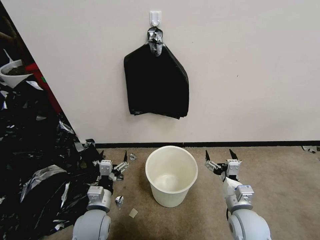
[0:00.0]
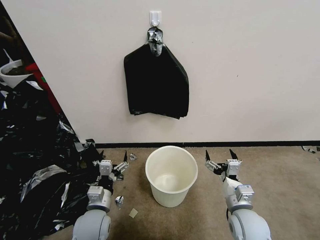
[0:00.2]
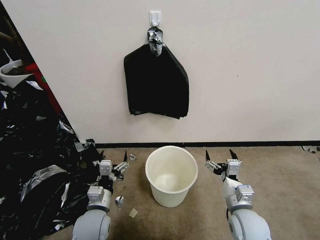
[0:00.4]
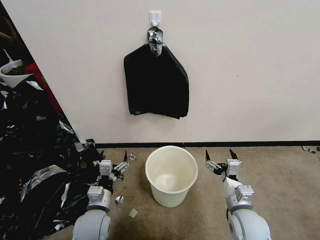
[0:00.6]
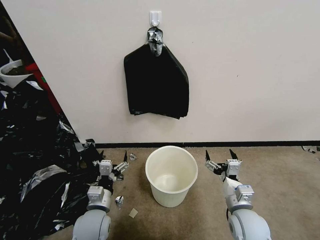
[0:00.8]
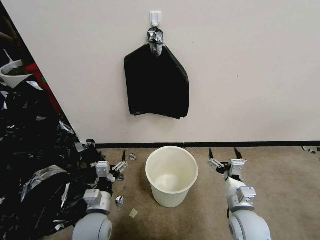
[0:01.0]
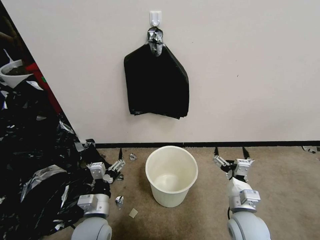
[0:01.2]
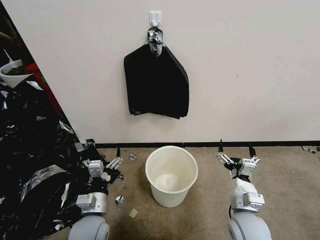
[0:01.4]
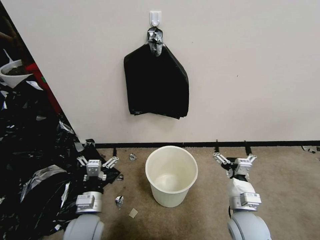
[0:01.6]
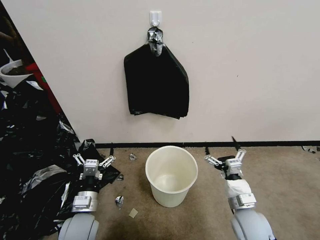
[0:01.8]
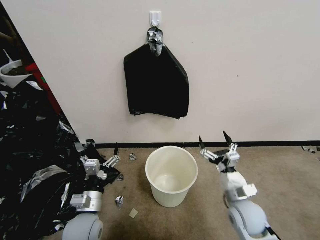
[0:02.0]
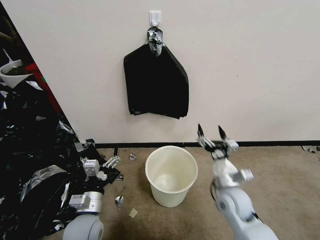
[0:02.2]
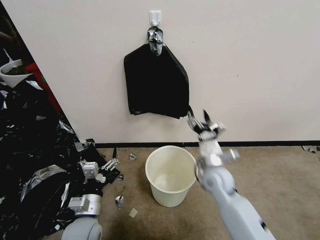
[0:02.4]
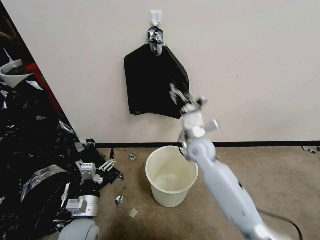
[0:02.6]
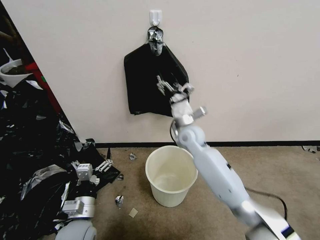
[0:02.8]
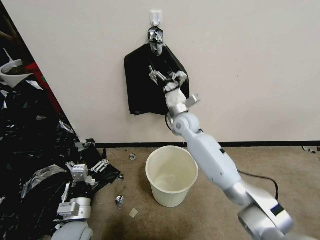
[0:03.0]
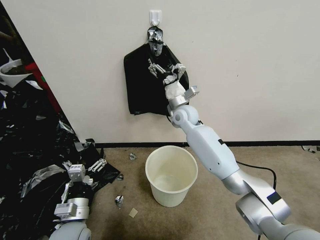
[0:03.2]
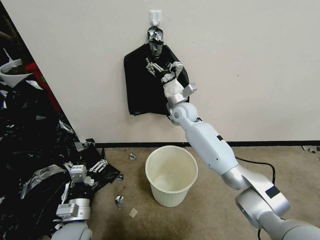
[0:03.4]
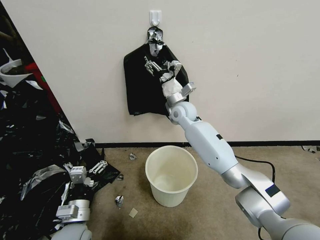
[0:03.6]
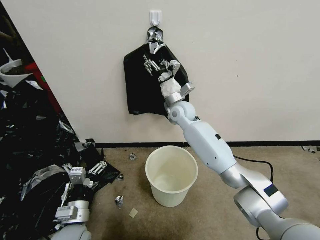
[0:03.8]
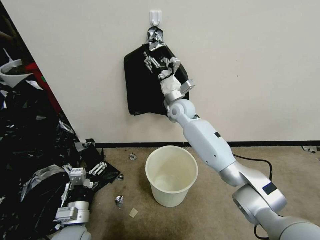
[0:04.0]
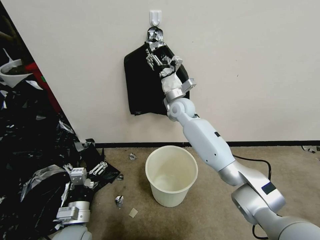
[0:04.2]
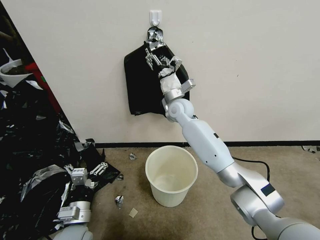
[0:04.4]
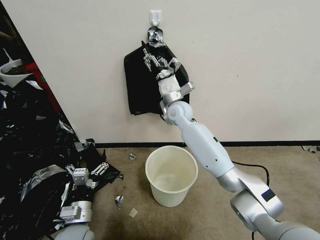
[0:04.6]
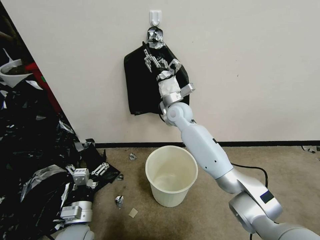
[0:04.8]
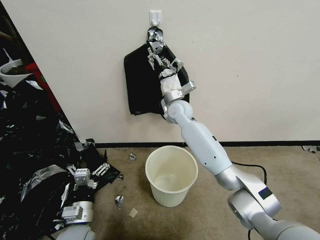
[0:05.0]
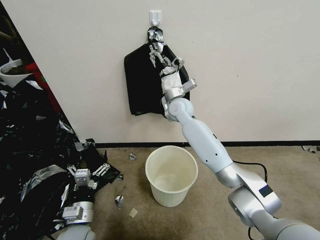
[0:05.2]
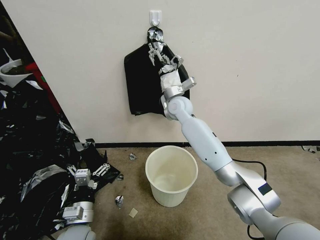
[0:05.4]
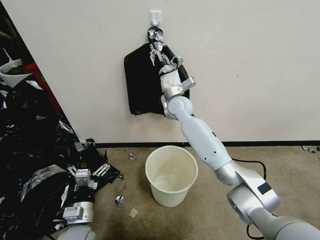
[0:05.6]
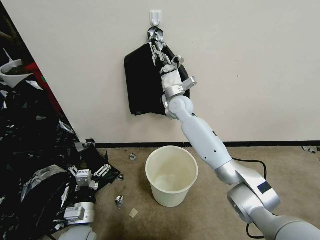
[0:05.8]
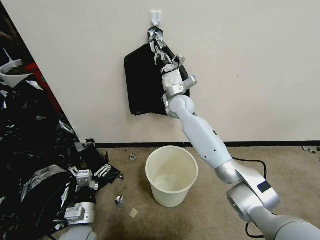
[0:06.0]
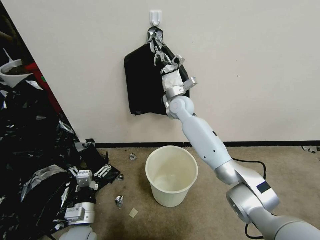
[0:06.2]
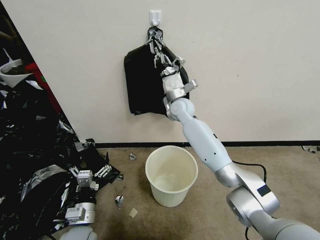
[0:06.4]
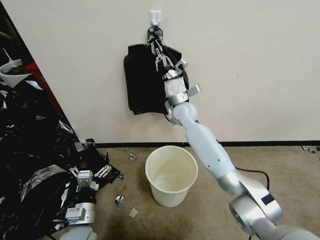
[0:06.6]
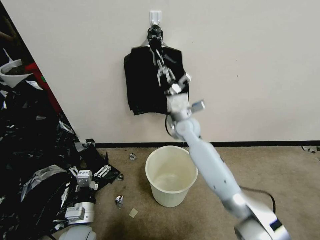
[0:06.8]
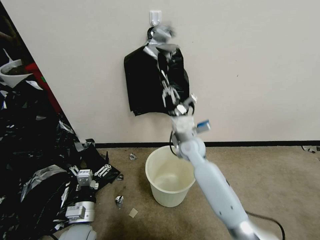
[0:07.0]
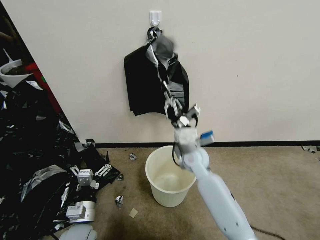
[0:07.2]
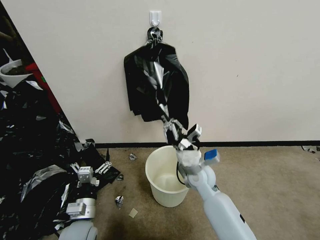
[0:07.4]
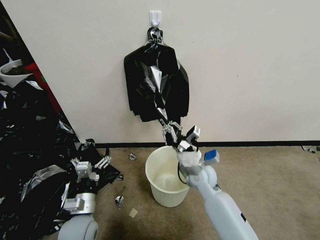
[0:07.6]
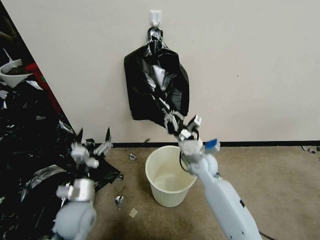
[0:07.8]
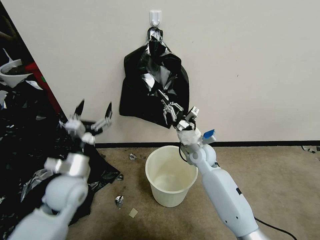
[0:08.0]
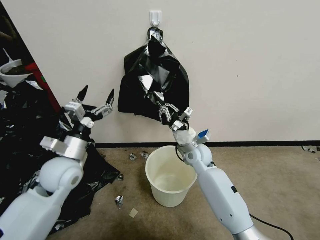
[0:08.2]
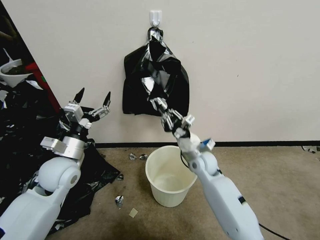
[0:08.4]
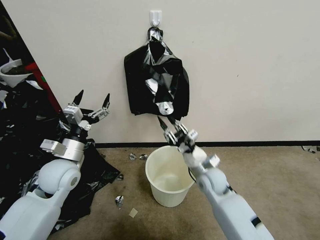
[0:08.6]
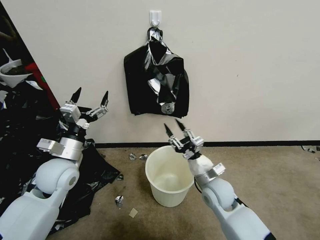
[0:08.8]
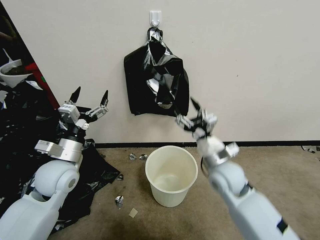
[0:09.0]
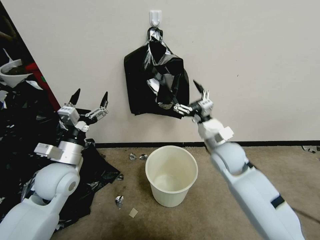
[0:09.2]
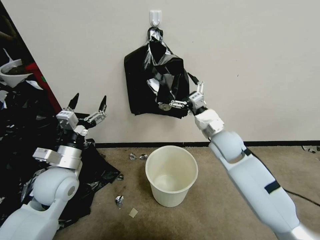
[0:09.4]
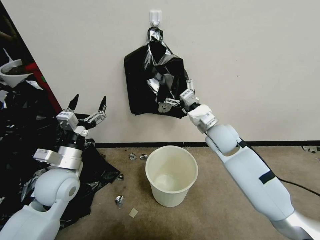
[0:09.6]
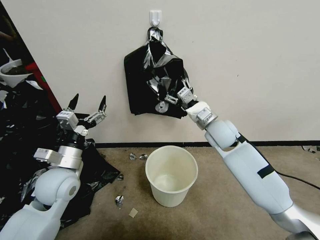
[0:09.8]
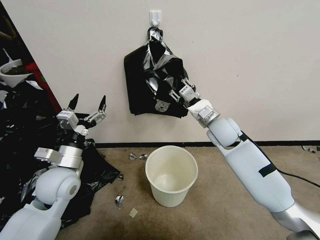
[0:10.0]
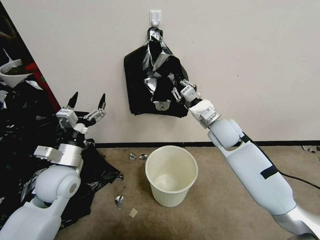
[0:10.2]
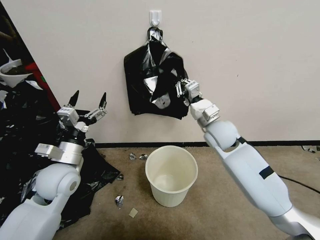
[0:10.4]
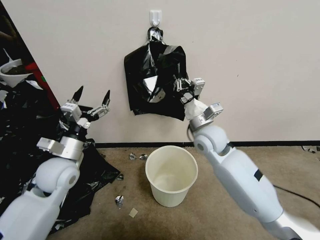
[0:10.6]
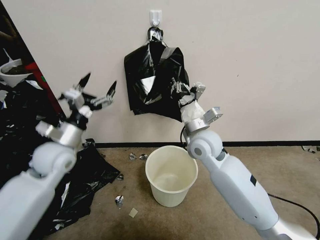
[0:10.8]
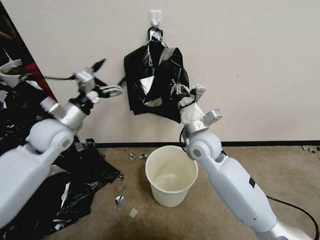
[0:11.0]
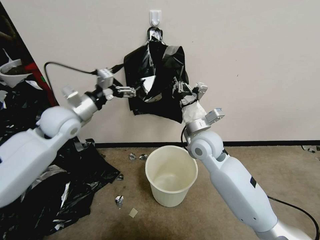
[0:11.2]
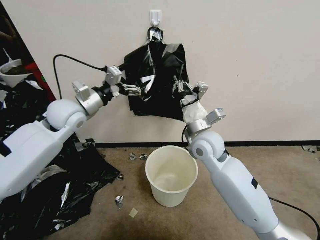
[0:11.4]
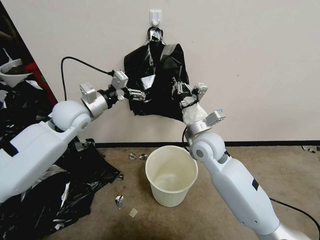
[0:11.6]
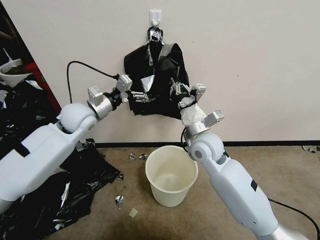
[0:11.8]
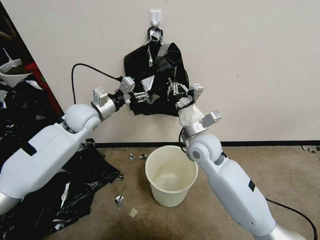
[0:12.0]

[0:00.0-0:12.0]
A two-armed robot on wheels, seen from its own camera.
Task of the whole recording: Place a trash bag onto the trash bin.
0:01.6 to 0:03.0: The right gripper moves forward and to the left, roughly 35 cm.
0:03.0 to 0:04.4: The grippers move only a little.
0:04.4 to 0:06.0: The right gripper closes up.
0:06.0 to 0:07.6: The right gripper goes approximately 25 cm backward and downward.
0:07.6 to 0:09.0: The left gripper heads upward and forward, covering approximately 20 cm; the right gripper goes about 5 cm upward, travels forward and back again, some 10 cm each way, and opens its fingers.
0:09.0 to 0:10.4: The right gripper moves forward and upward, approximately 15 cm, and closes up.
0:10.4 to 0:12.0: The right gripper is displaced to the left and backward by approximately 10 cm; the left gripper goes about 20 cm forward and upward.

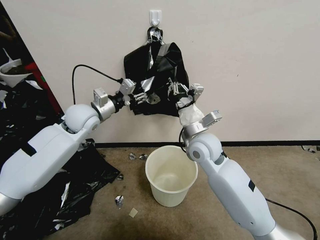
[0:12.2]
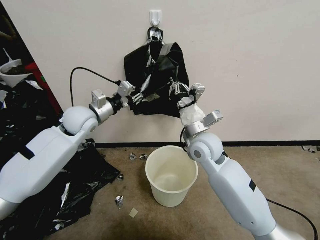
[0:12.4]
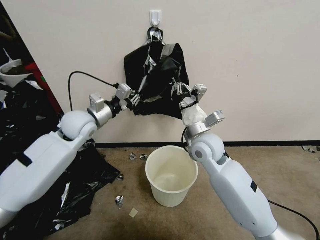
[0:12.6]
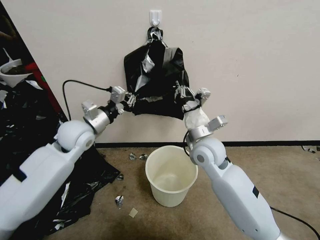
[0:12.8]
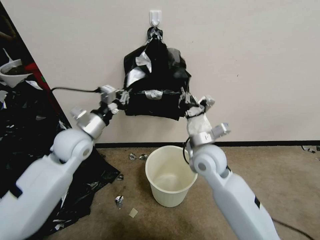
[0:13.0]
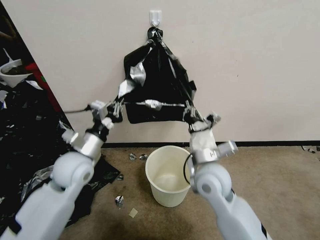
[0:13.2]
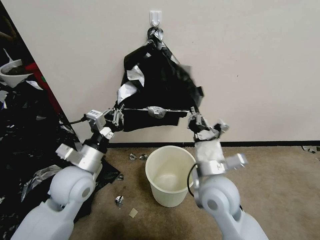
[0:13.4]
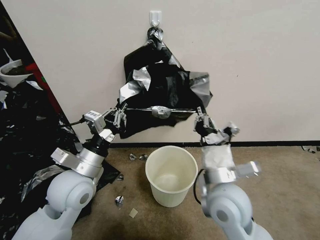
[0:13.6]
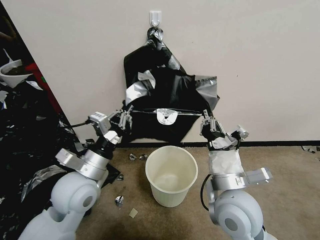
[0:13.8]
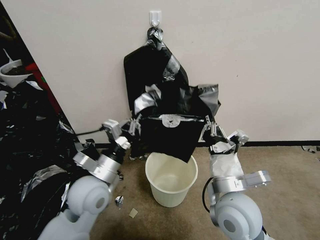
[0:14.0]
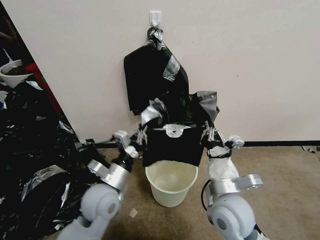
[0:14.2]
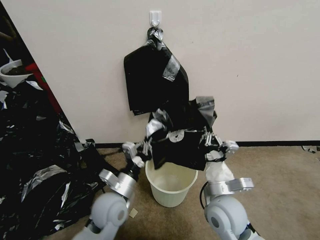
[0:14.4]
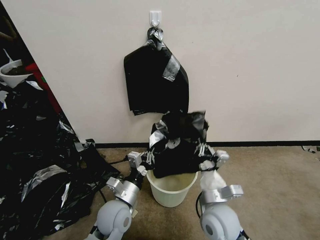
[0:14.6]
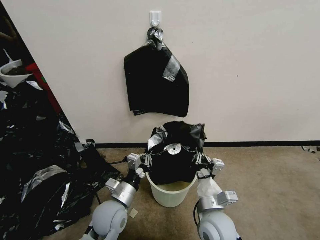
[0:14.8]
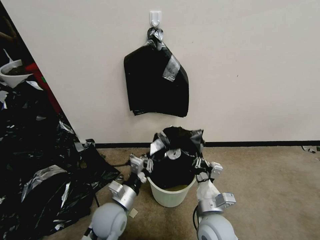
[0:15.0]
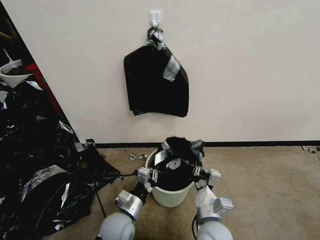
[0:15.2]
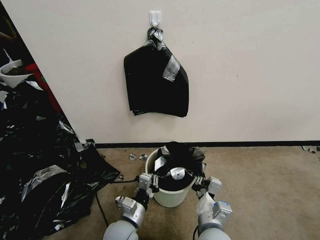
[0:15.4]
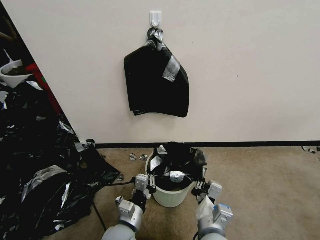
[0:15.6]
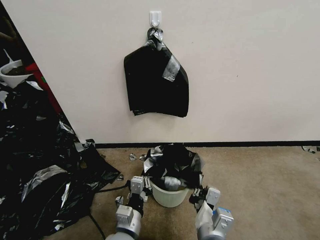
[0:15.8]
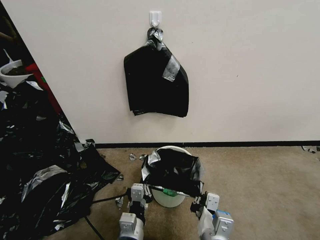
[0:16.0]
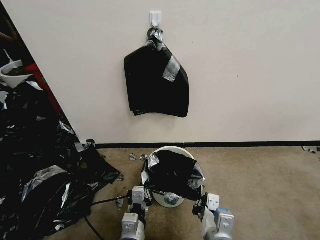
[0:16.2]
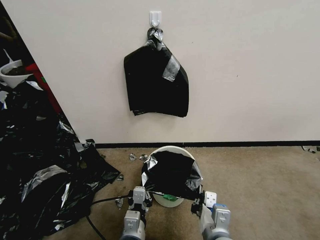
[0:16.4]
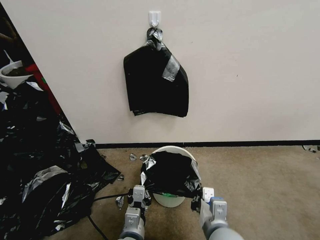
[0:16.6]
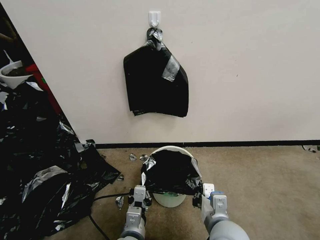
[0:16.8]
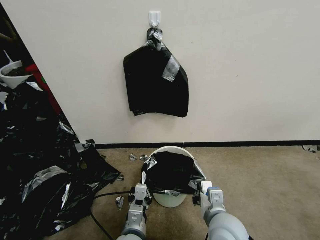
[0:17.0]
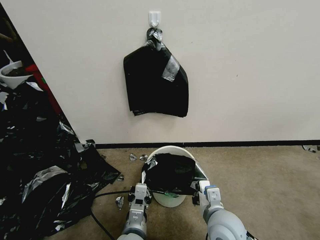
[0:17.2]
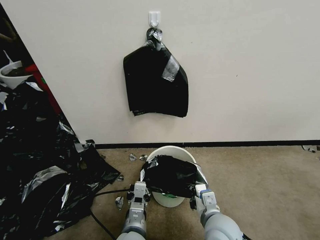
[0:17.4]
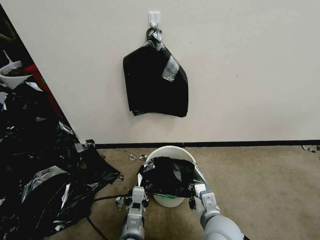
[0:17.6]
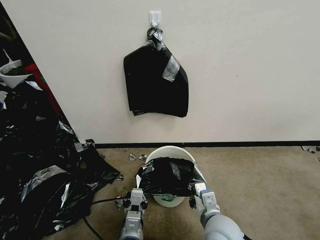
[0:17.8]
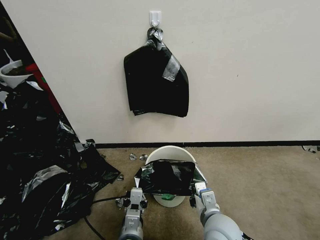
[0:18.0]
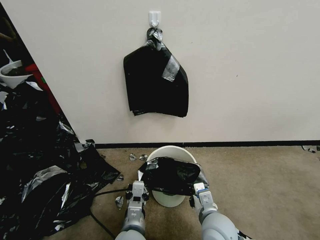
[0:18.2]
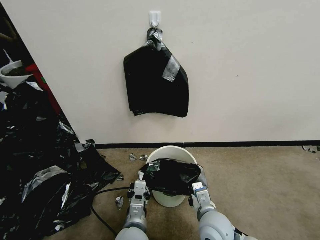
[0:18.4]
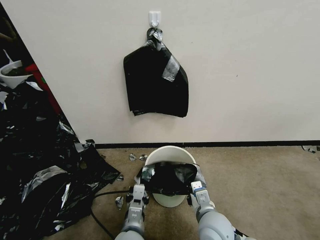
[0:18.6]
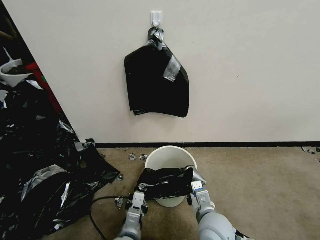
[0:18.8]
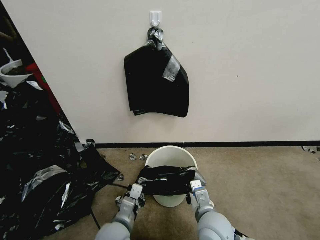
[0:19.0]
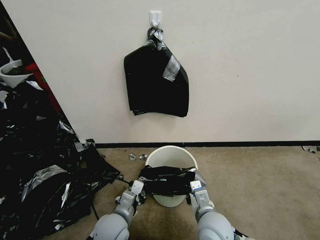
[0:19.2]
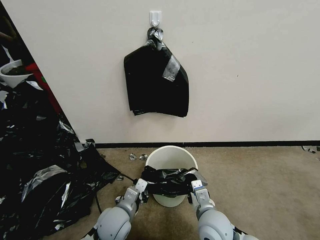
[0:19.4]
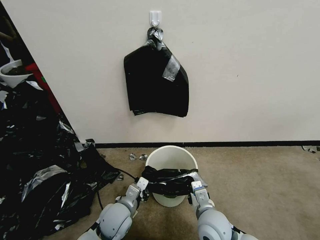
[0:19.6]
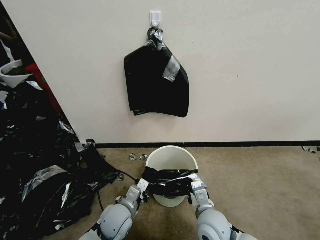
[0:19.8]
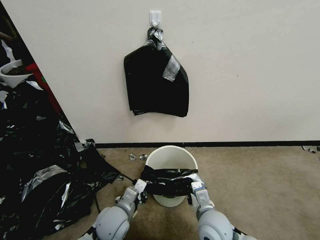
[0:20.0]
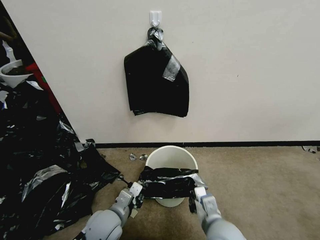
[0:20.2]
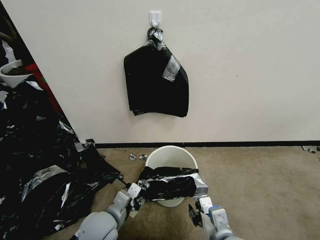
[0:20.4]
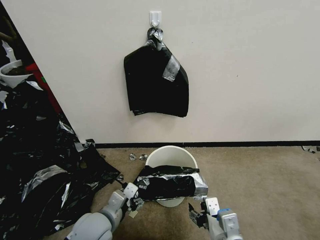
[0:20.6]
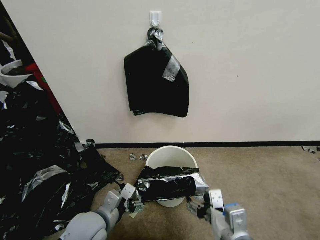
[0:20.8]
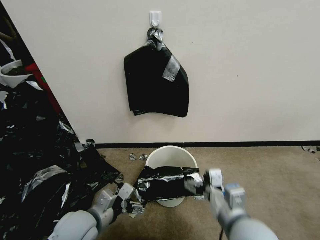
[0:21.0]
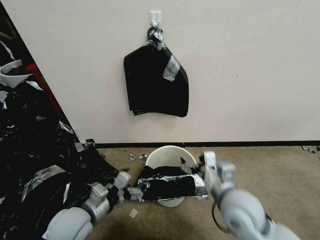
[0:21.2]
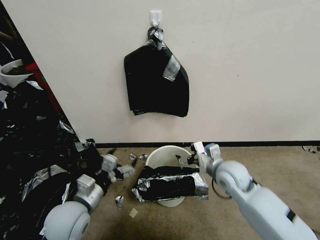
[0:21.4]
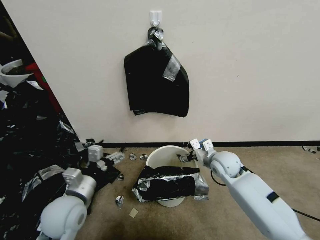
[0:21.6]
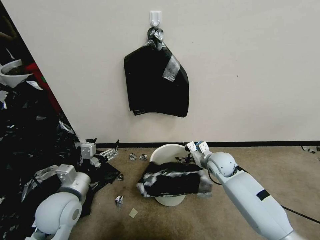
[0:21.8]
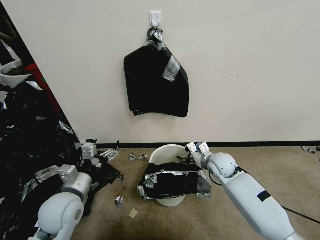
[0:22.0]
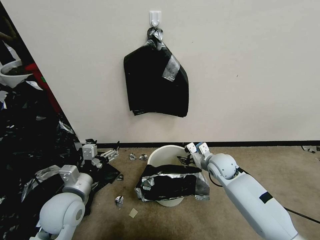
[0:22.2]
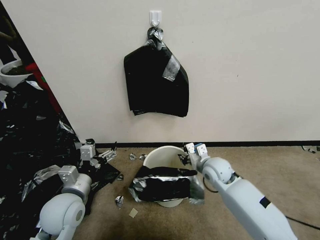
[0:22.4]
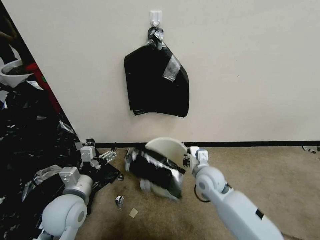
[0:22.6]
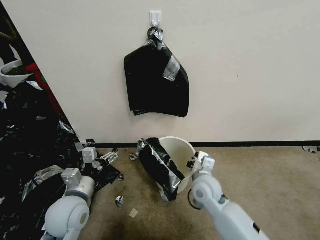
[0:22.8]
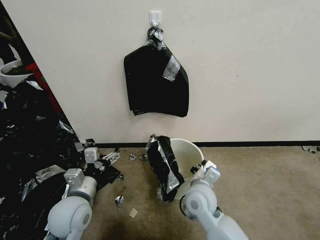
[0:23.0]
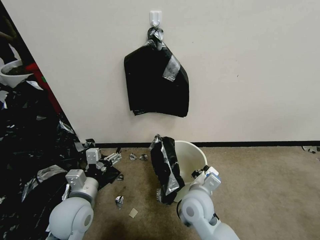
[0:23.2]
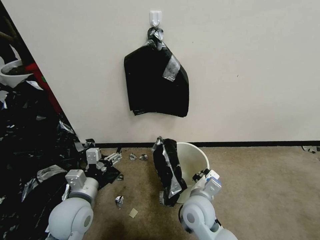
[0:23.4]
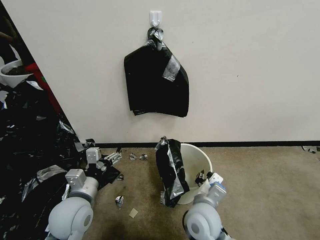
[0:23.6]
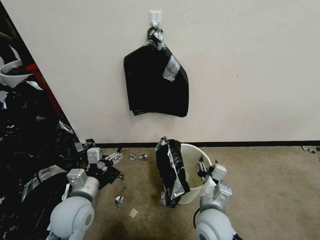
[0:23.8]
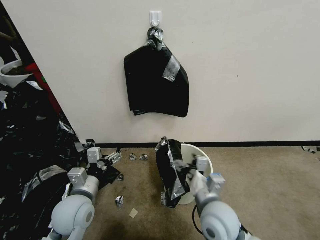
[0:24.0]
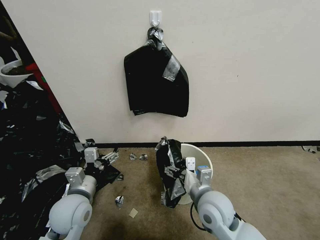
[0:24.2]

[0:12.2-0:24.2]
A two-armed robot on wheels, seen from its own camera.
Task of the whole recording: Place a trash bag onto the trash bin.
0:12.2 to 0:13.8: The two grippers go approximately 20 cm backward. The left gripper closes its fingers.
0:13.8 to 0:15.2: Both grippers travel together downward, approximately 15 cm.
0:15.2 to 0:16.6: The right gripper is displaced upward by about 5 cm. Meanwhile the left gripper moves backward and to the right, some 10 cm.
0:16.6 to 0:18.2: The right gripper changes place by about 5 cm.
0:18.2 to 0:19.8: The left gripper goes about 10 cm forward and to the left.
0:19.8 to 0:21.2: The left gripper moves upward and to the left, some 15 cm, and opens up. Meanwhile the right gripper moves upward, approximately 10 cm, and opens.
0:21.2 to 0:22.6: The right gripper travels forward and downward by about 15 cm, and closes.
0:22.6 to 0:24.2: The right gripper shifts roughly 10 cm backward, and opens up.
